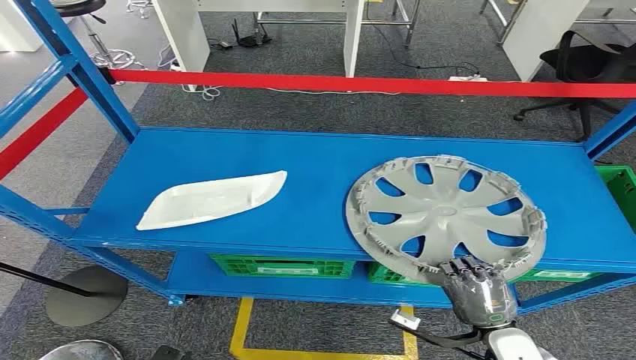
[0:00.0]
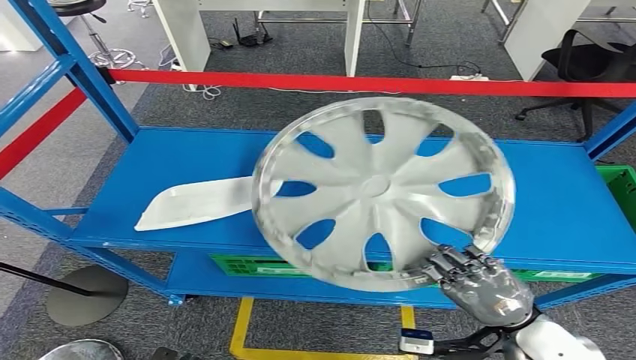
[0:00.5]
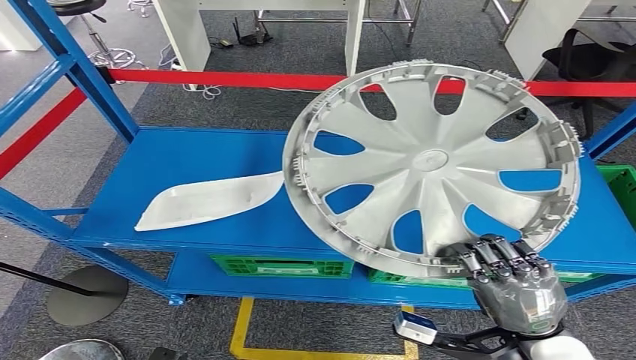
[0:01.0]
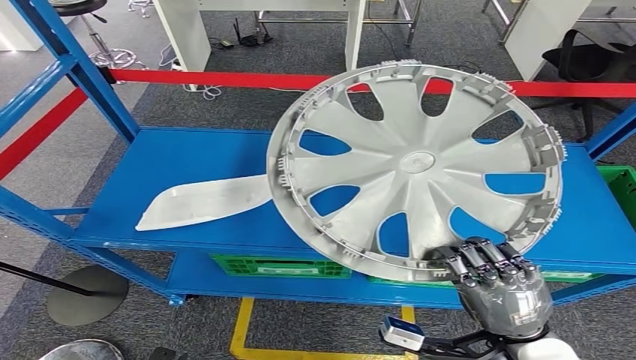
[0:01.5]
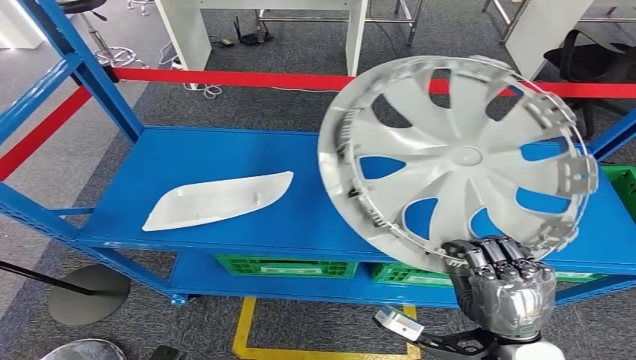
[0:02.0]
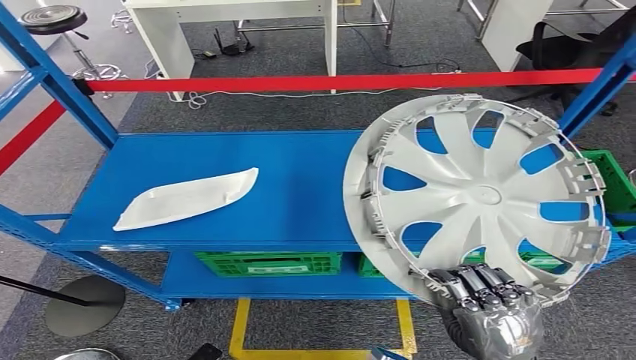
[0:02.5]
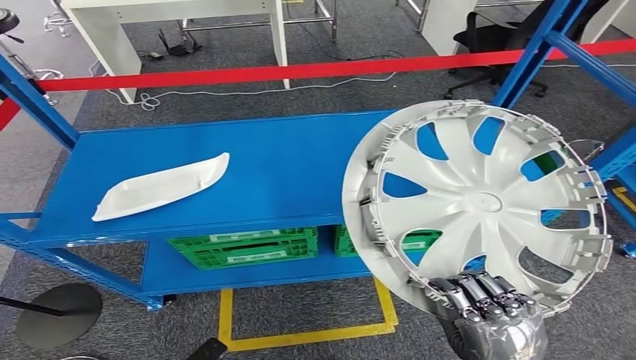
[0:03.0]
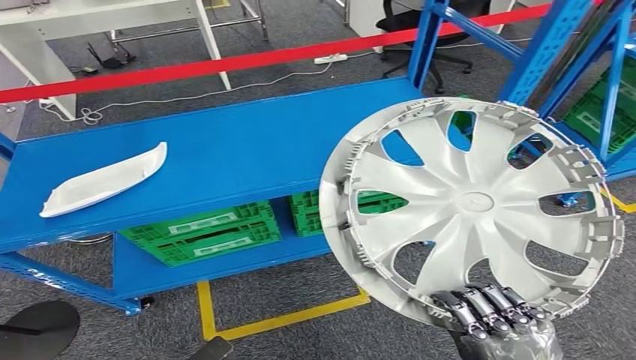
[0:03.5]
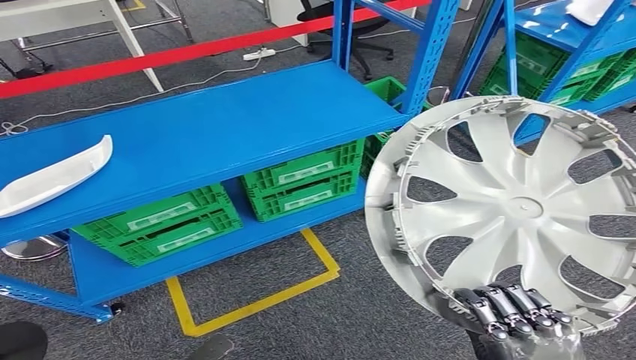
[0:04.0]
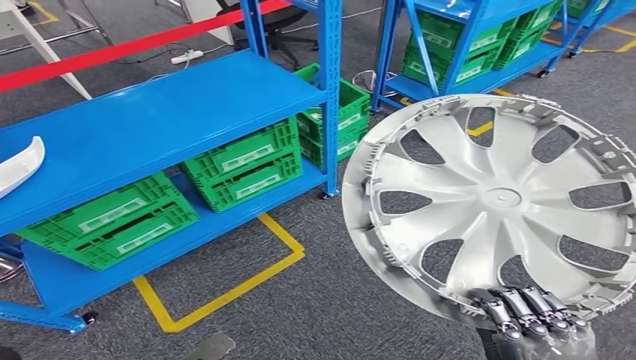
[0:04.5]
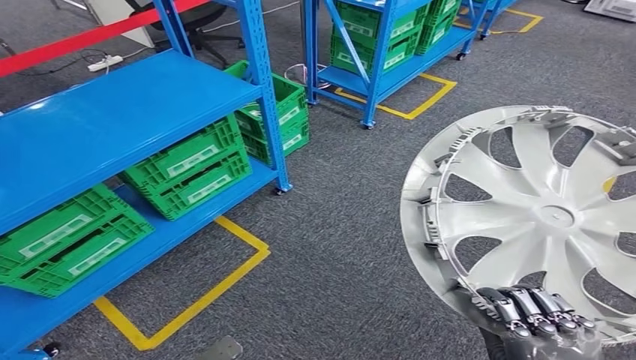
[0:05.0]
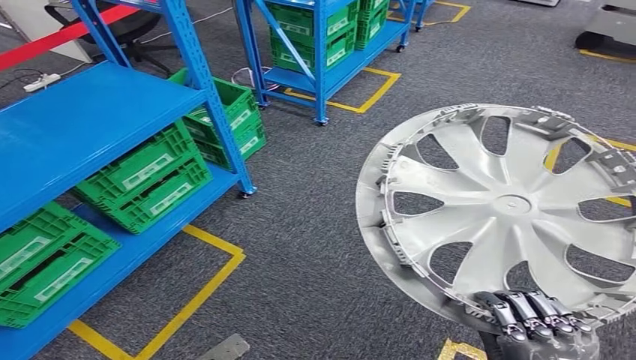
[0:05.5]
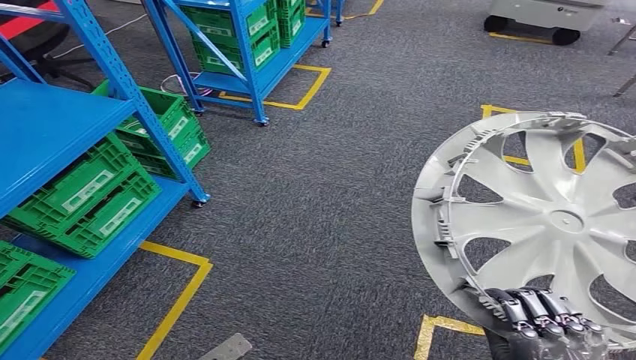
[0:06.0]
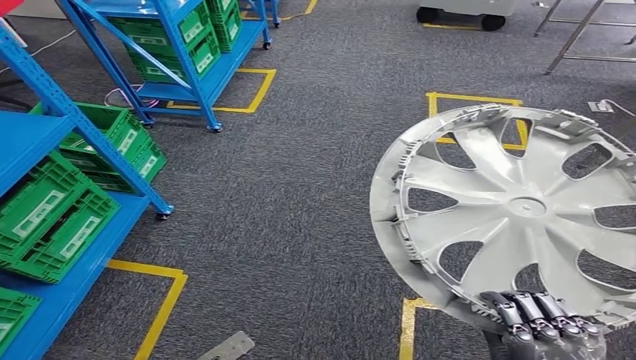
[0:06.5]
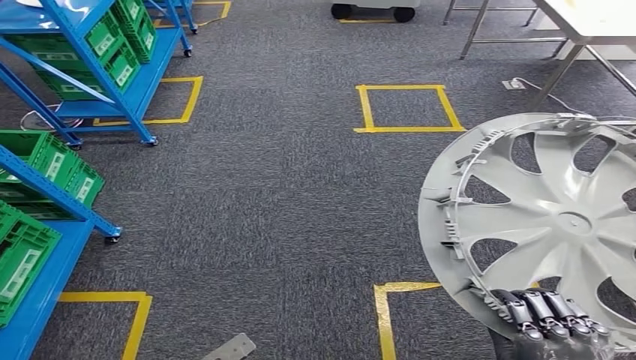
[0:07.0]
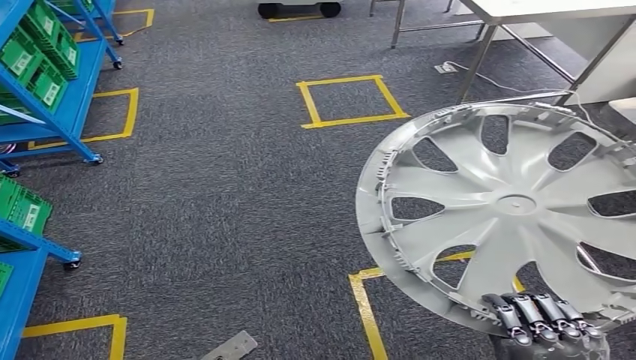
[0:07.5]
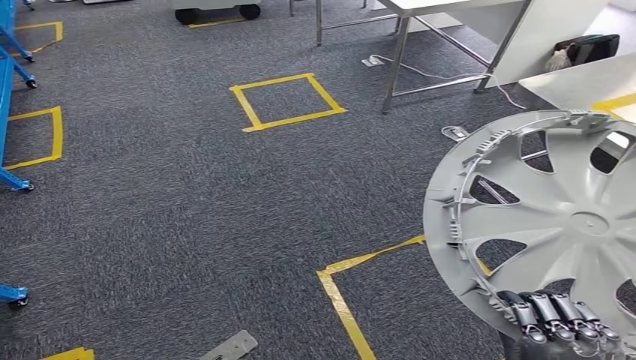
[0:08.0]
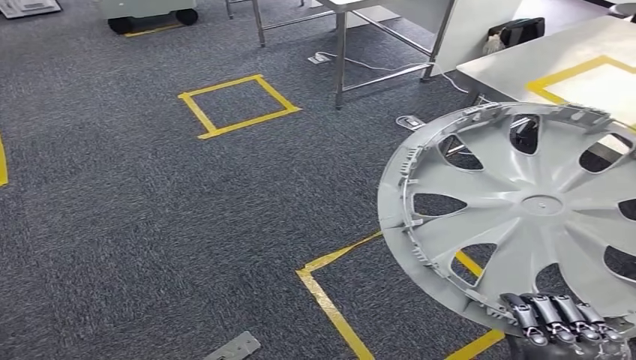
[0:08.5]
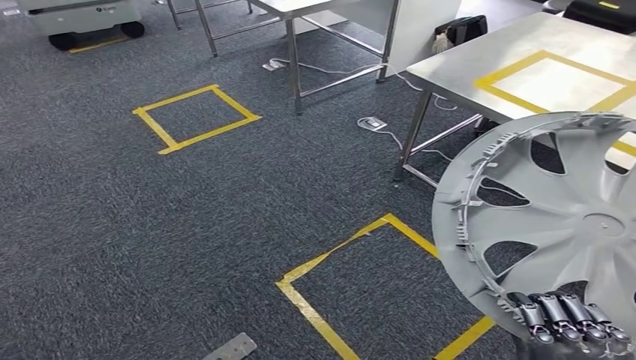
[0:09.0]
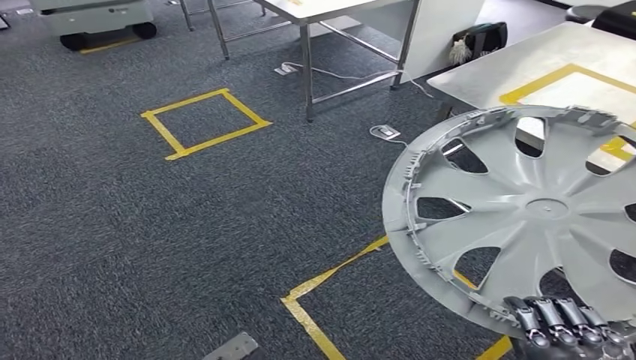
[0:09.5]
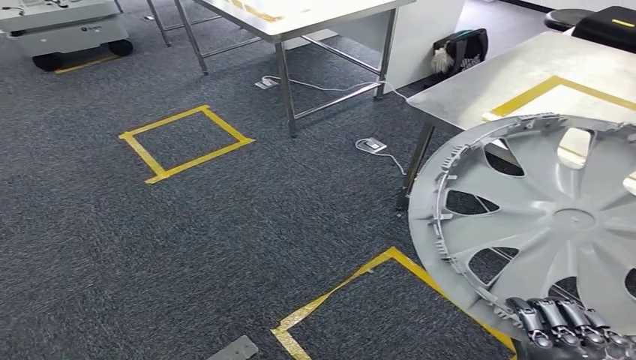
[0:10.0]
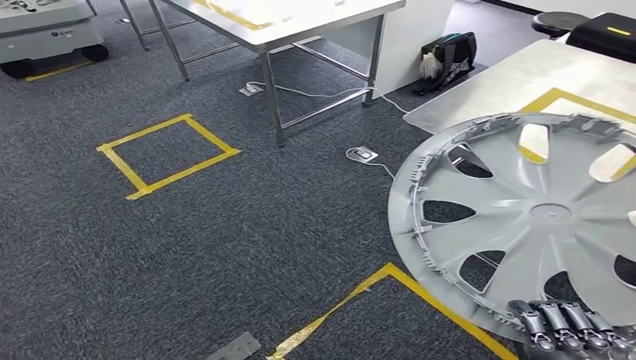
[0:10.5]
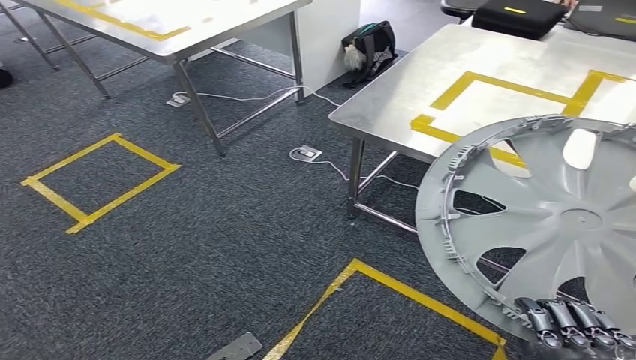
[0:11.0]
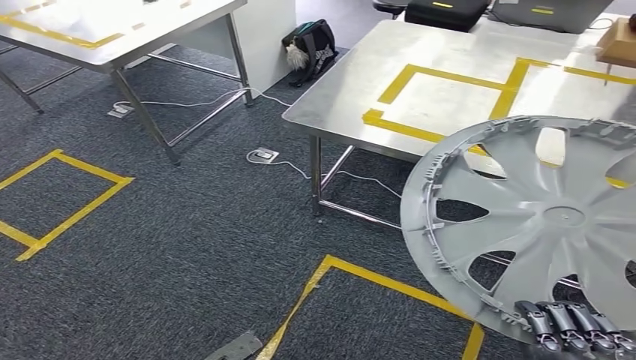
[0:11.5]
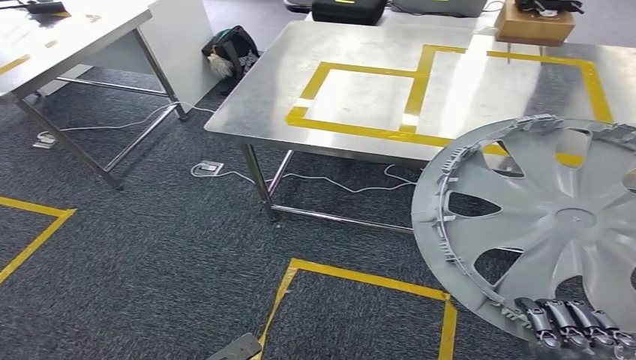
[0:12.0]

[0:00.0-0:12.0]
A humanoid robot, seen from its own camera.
Step, 0:00.0 to 0:01.5: Pick up the small component from the shelf.

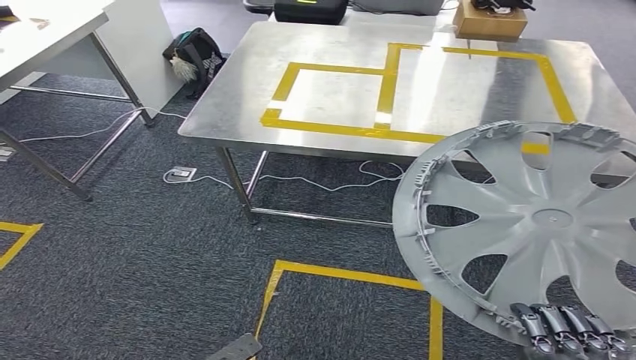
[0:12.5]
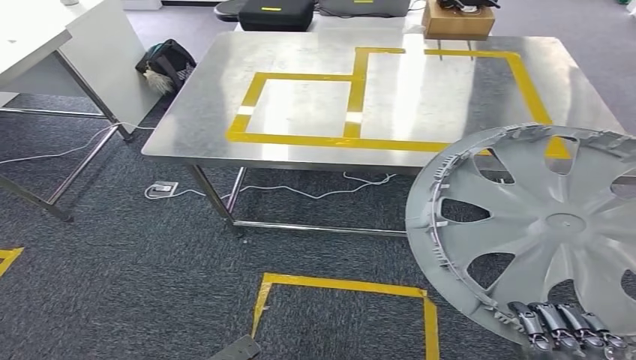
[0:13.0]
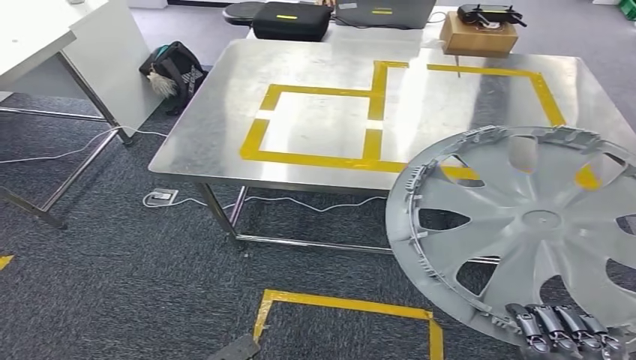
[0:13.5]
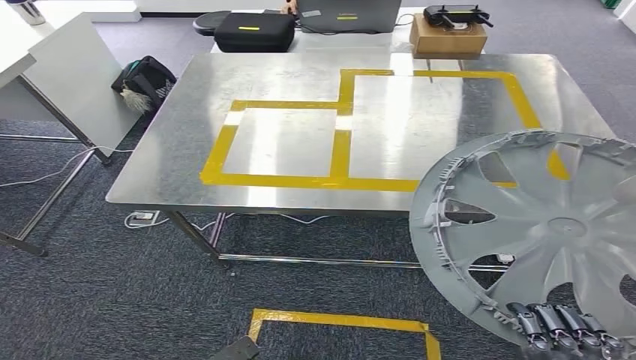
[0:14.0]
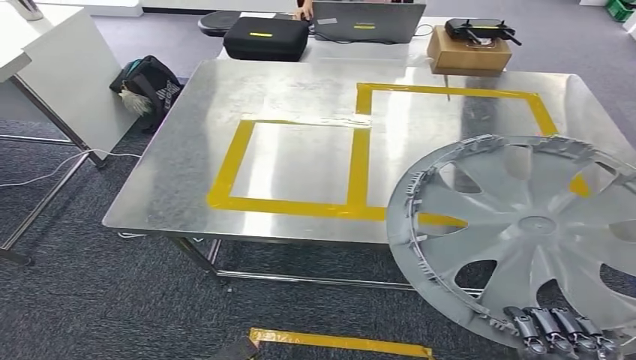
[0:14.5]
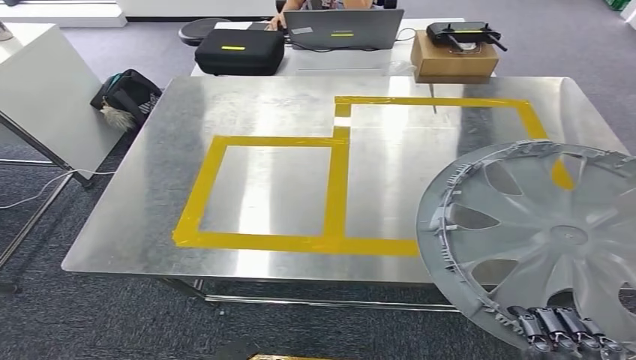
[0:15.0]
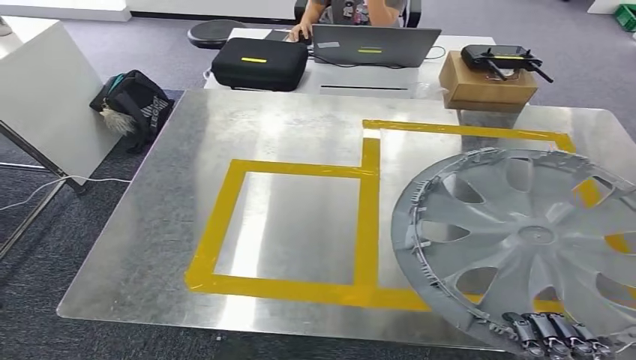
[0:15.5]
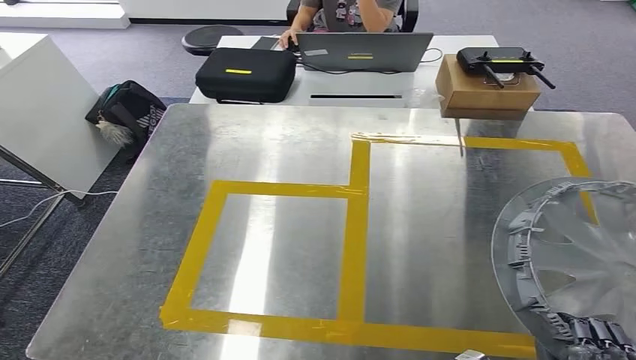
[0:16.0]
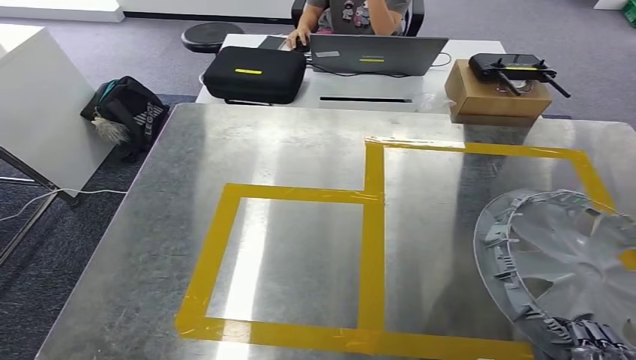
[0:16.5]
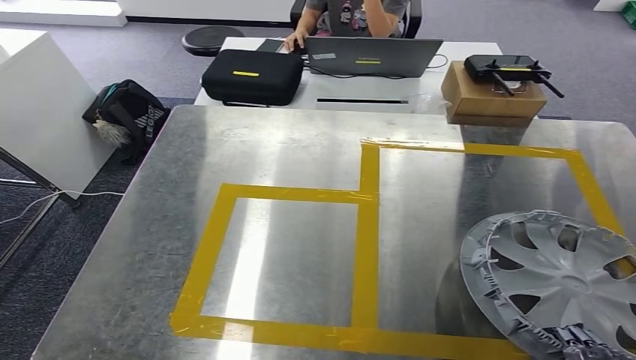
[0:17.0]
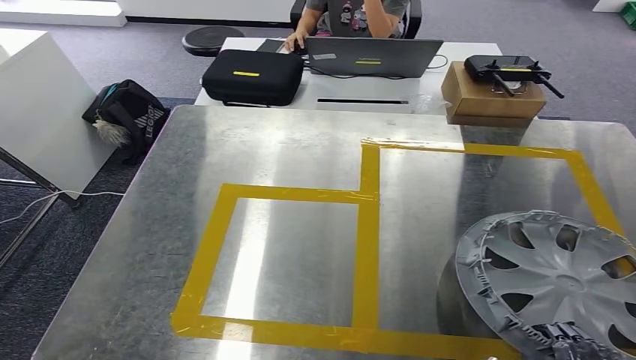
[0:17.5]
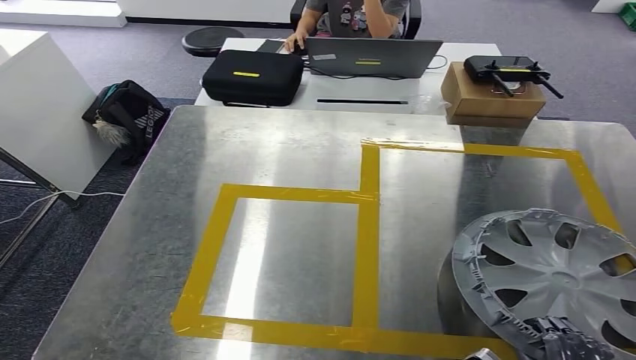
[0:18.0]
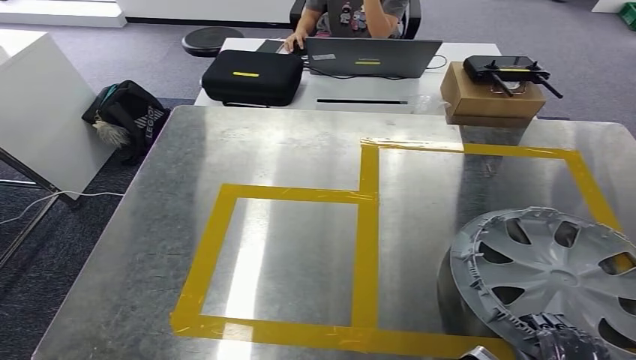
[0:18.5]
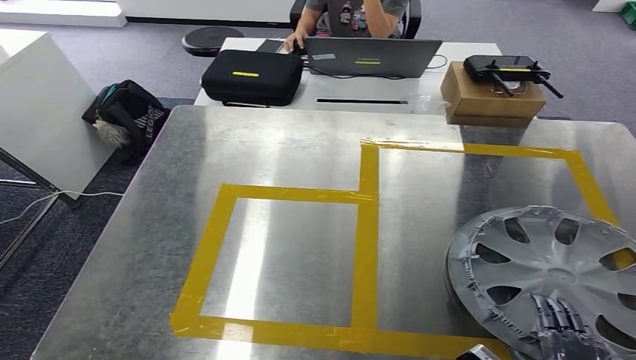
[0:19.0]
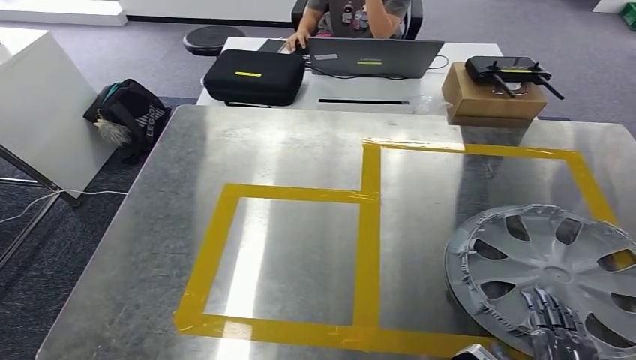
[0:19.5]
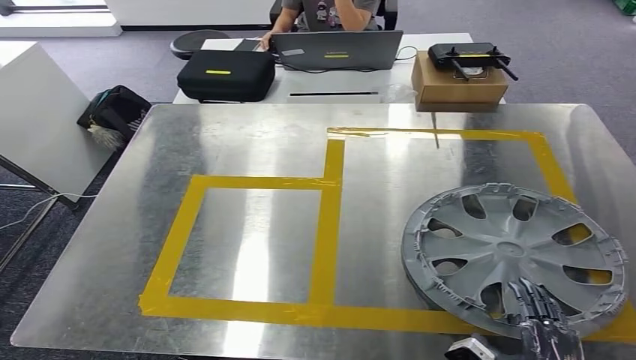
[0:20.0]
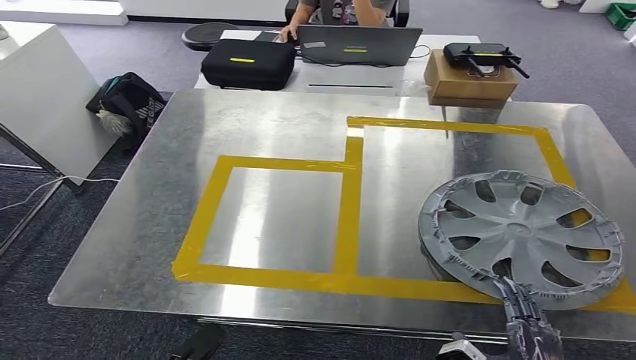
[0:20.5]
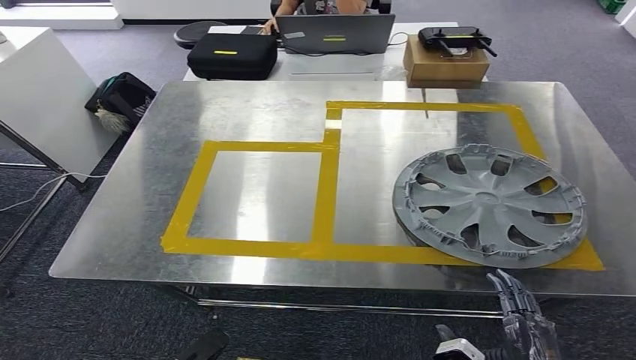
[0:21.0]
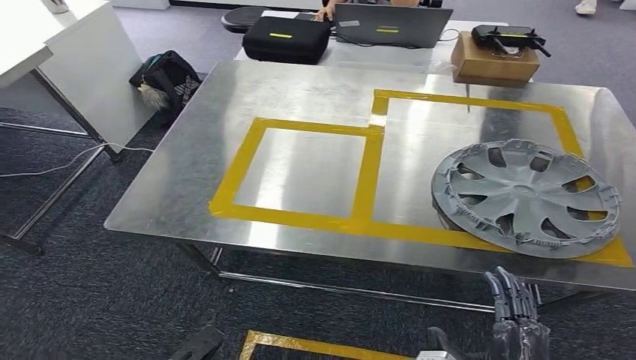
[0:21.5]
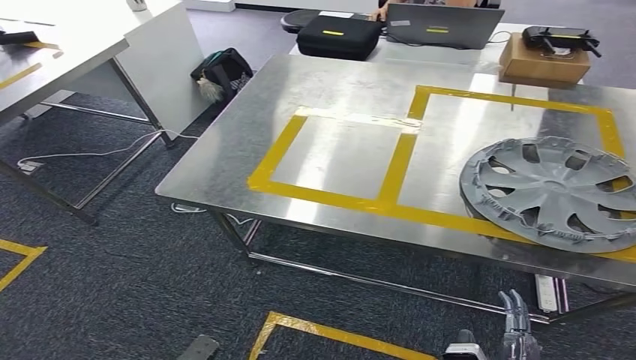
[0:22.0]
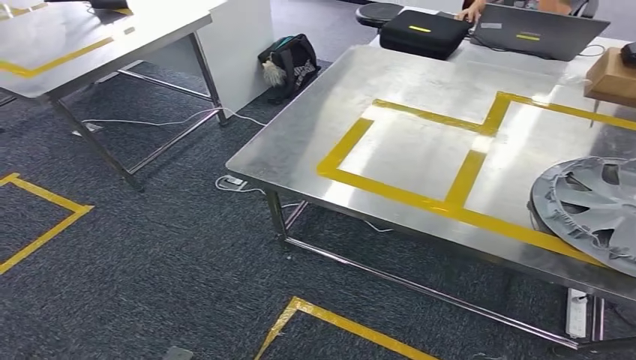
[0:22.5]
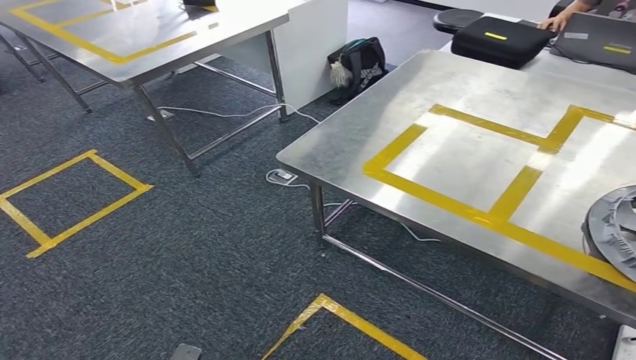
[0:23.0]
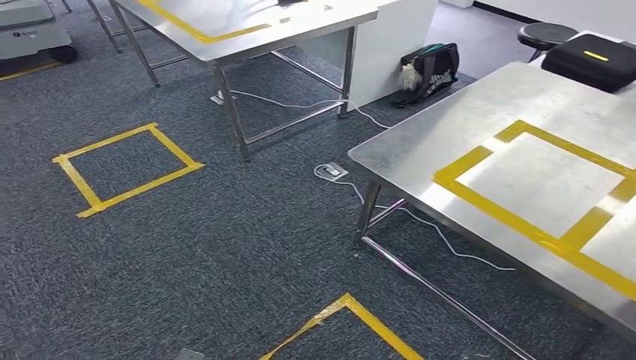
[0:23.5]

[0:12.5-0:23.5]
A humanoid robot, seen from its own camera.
Step, 0:12.5 to 0:15.5: Move the small component to the workbench.
Step, 0:16.0 to 0:21.5: Insert the small component into the corresponding slot on the workbench.
